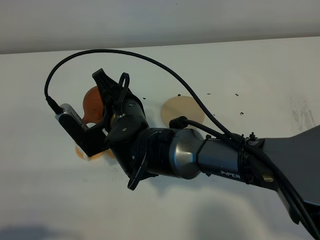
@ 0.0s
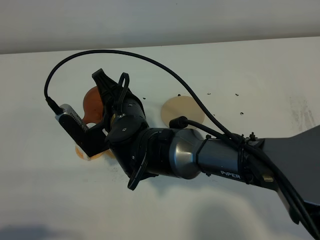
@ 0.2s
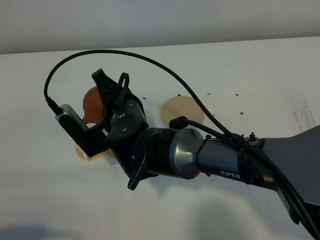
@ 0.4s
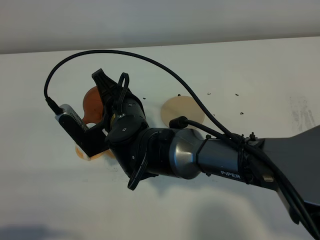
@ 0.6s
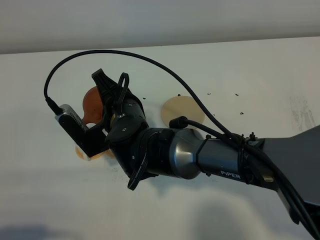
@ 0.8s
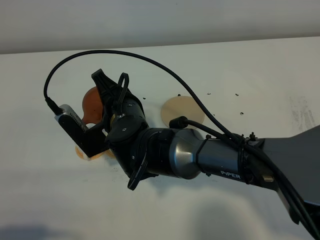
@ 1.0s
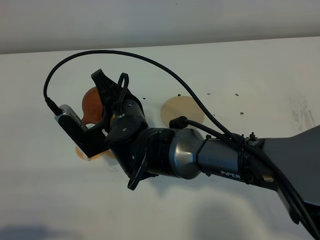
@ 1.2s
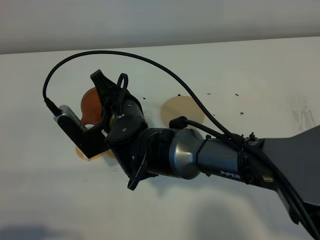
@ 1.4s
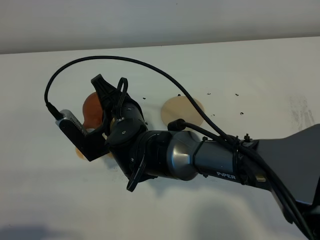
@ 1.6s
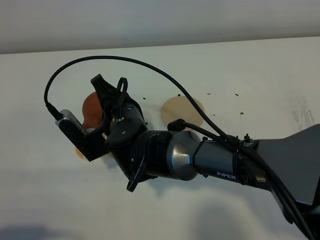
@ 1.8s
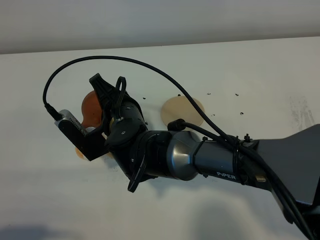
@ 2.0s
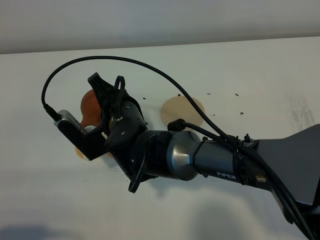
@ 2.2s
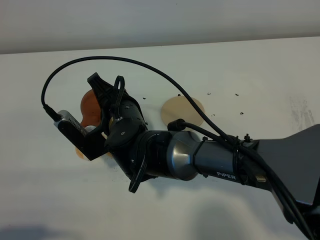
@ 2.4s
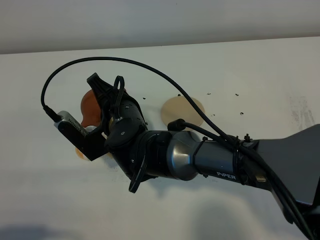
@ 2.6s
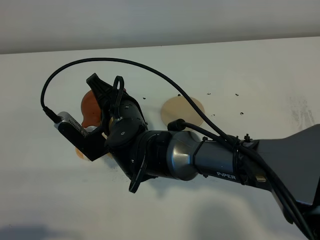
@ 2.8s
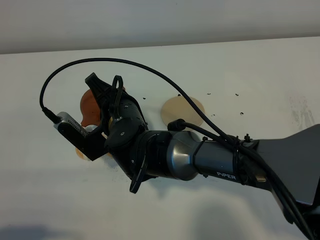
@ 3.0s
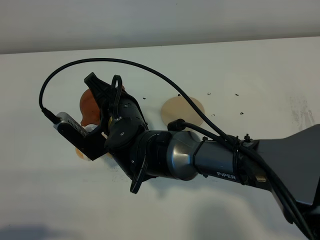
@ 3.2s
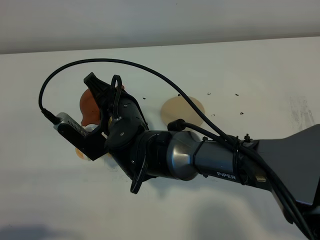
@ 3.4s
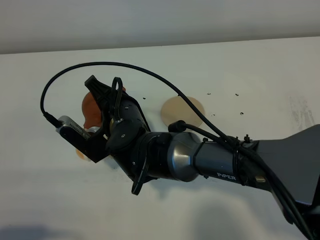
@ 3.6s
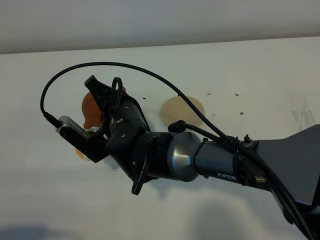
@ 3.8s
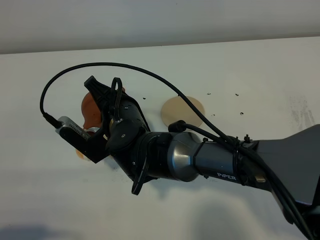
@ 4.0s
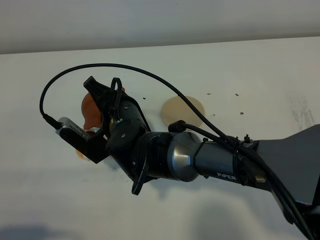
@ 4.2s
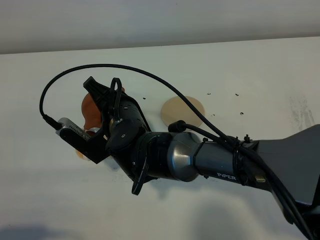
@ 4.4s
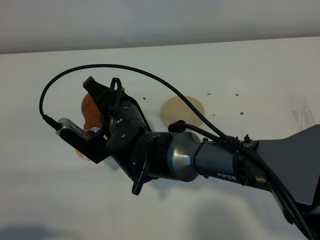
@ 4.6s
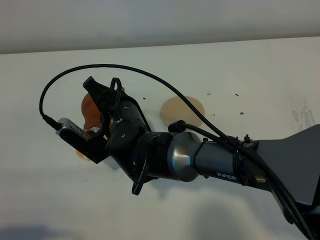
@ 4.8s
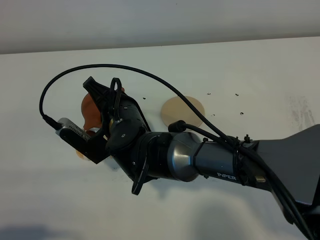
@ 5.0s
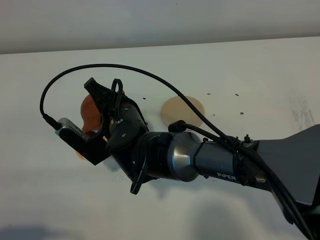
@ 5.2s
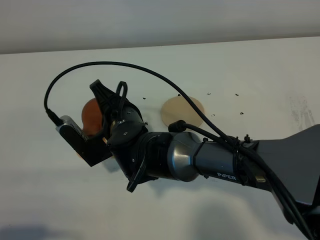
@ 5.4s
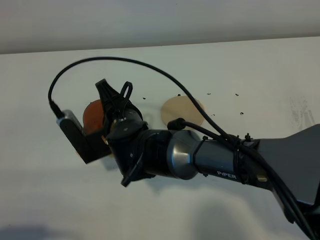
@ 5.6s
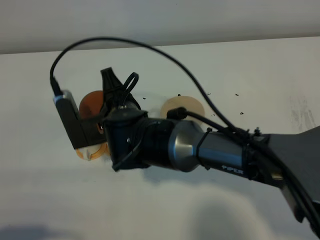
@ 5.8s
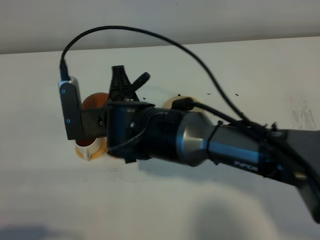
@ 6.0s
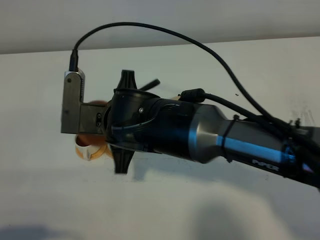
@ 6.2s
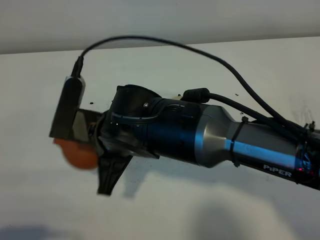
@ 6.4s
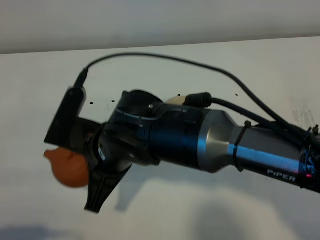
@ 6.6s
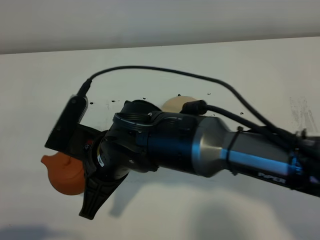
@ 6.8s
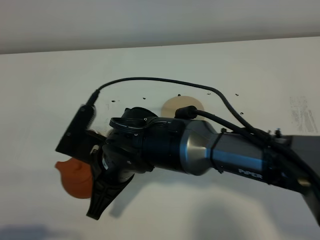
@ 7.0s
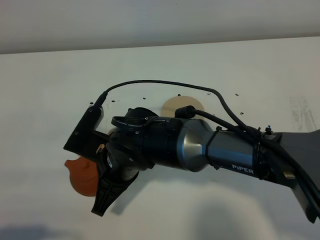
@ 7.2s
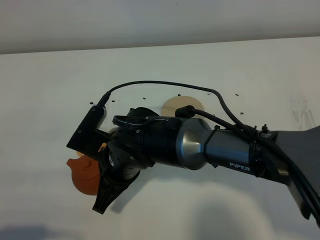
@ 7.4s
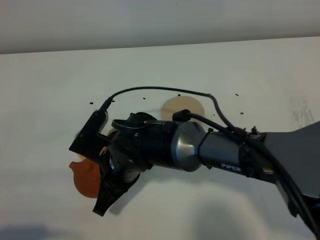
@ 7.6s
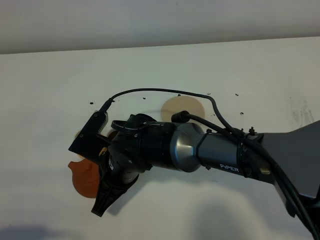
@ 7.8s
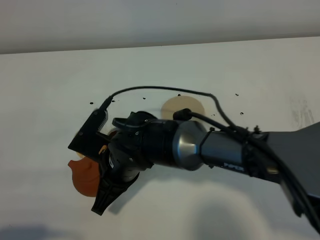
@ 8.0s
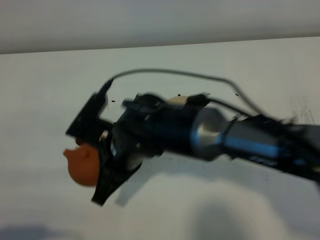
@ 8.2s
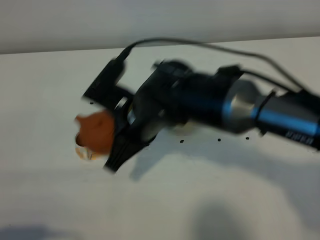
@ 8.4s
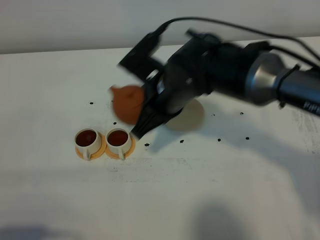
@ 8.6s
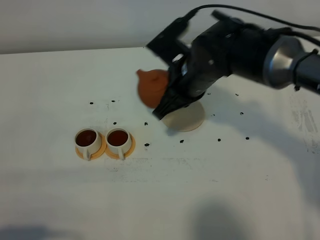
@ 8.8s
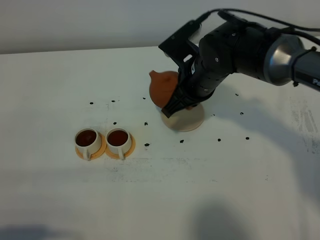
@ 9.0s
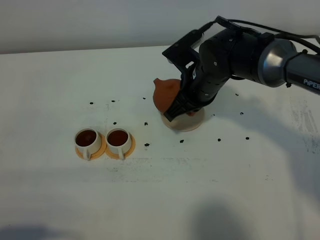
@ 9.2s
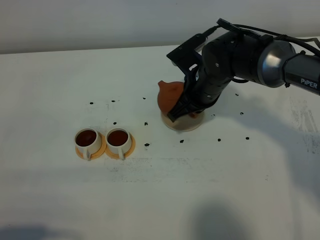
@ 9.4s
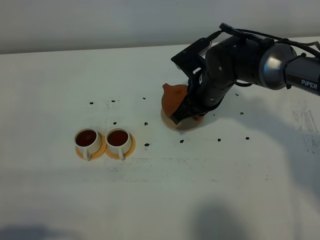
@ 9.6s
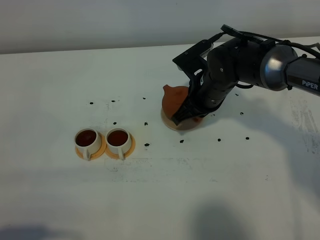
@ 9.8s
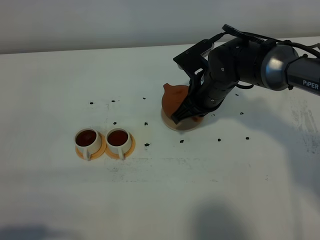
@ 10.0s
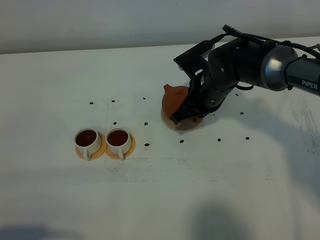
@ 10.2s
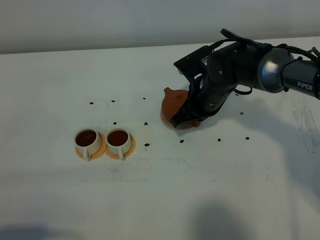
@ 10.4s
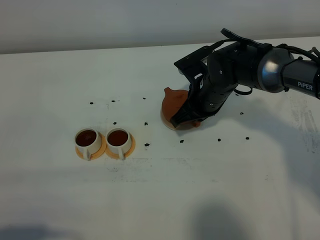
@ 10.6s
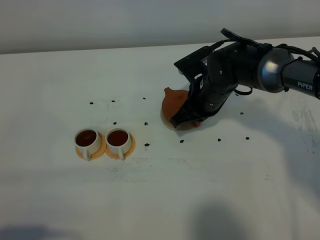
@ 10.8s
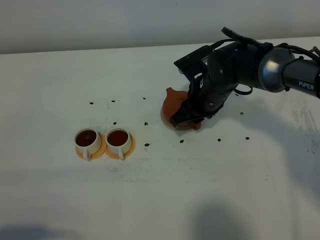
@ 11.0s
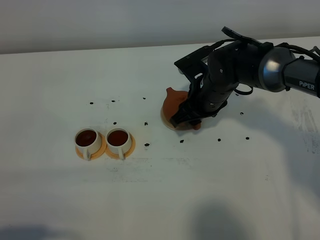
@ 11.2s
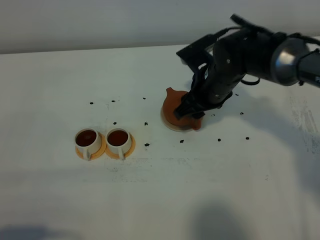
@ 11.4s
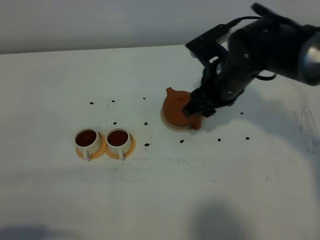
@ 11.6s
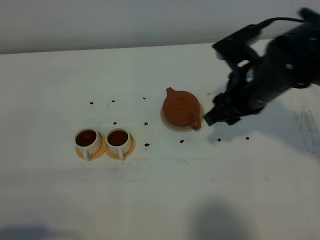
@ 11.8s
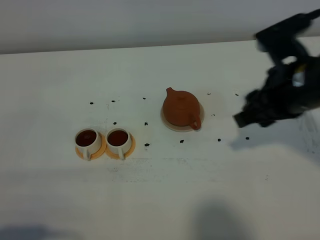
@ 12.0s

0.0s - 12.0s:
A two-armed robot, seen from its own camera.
Task of the whole recording: grasp the brown teapot and pour the tea into the two white teacups one by one, put the brown teapot back in its original place.
Step, 0.0s - 6.2s: Pour tea into the teacup with the right gripper.
0.0s - 1.6s: The two grippers keep their place.
1.6s - 3.0s: The grippers move only a little.
3.0s - 4.4s: Both grippers stay put.
6.0s - 7.6s: The right gripper shifts some 5 cm downward.
7.6s - 9.0s: The right gripper travels to the right, forward and upward by approximately 20 cm.
9.0s - 10.4s: The right gripper moves downward, approximately 5 cm.
10.4s - 12.0s: The right gripper travels upward, backward and to the right by some 20 cm, and opens its fingers.

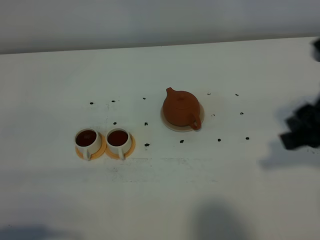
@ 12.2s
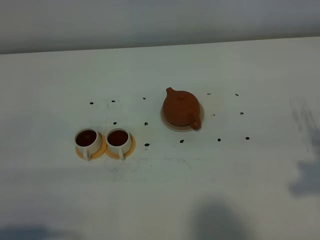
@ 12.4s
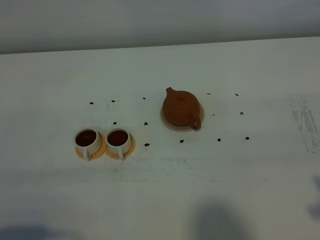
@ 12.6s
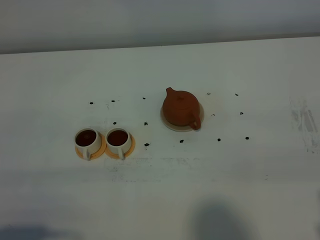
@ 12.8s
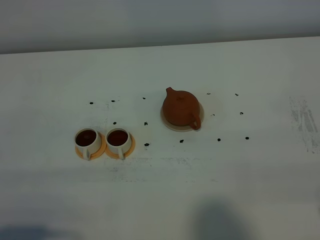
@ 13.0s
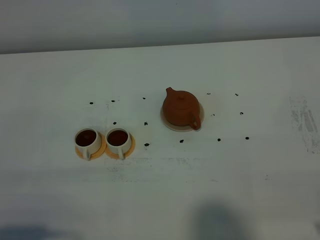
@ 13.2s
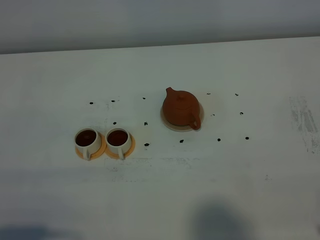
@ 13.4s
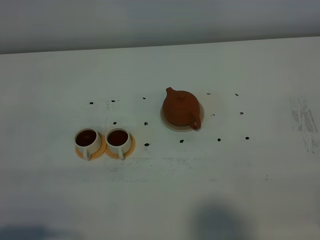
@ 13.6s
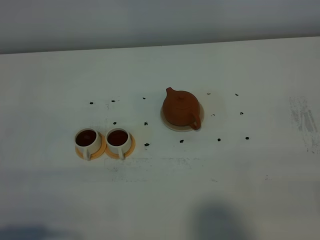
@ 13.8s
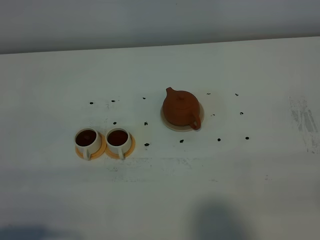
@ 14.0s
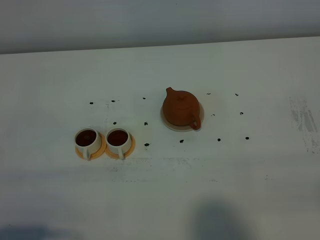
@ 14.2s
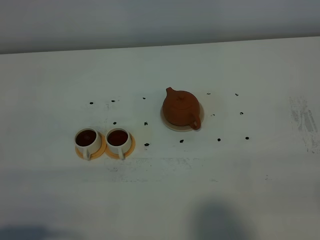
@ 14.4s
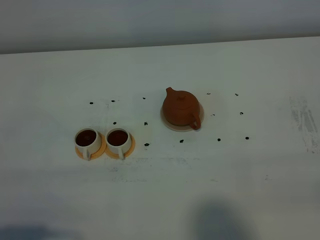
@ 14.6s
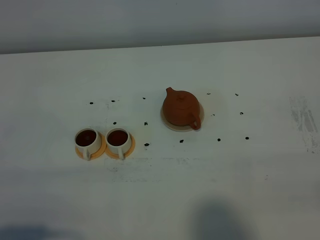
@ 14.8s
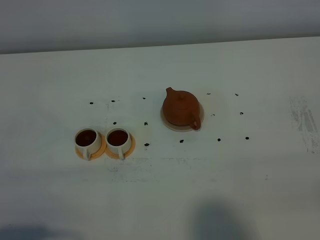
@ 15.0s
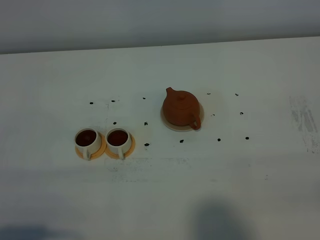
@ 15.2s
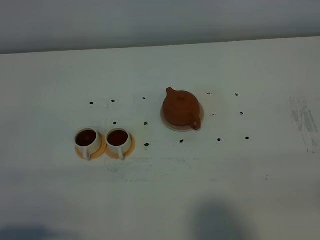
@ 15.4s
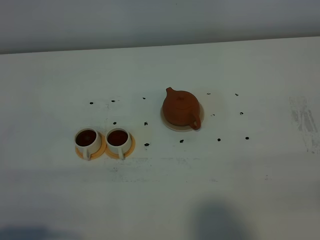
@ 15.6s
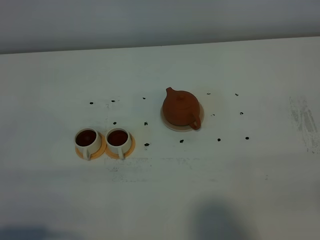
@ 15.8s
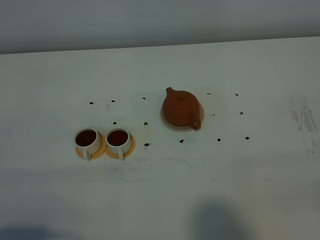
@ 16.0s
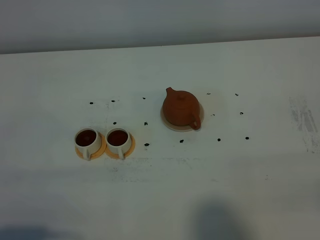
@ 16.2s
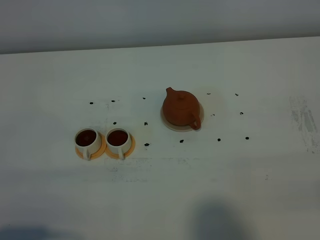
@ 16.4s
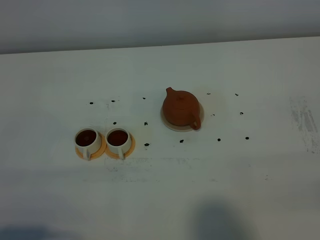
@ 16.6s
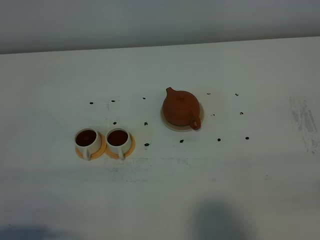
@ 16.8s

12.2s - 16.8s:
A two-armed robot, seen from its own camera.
Task of the whole recording: grasp the brown teapot and pour the tea into the two white teacups one by one, put the brown teapot back in its original place.
12.2s - 13.8s: The right gripper is displaced backward by approximately 20 cm.
15.2s - 16.8s: The two grippers keep their place.

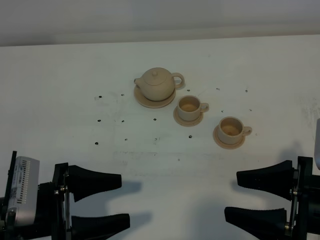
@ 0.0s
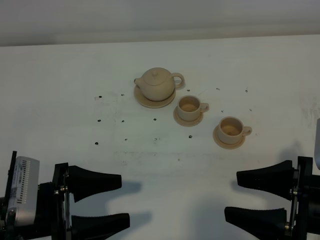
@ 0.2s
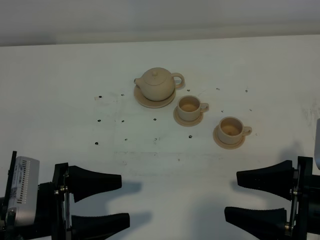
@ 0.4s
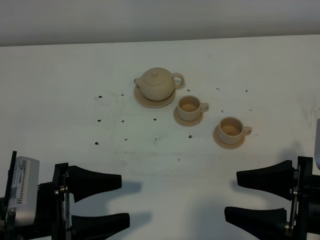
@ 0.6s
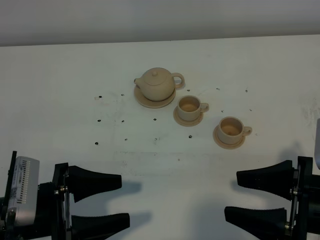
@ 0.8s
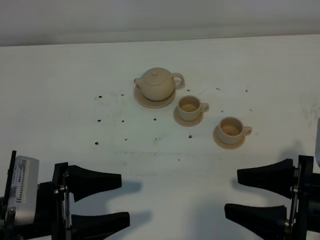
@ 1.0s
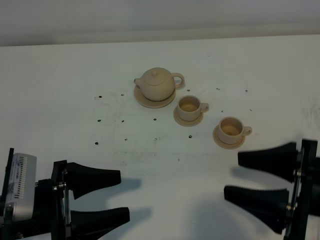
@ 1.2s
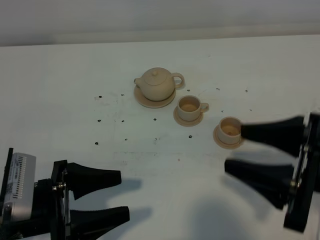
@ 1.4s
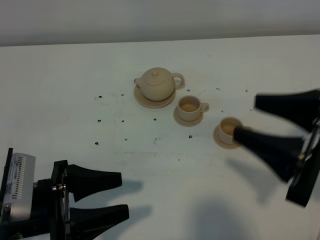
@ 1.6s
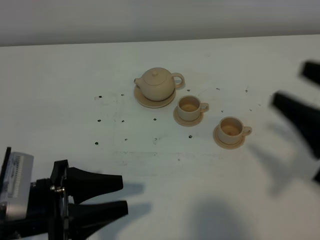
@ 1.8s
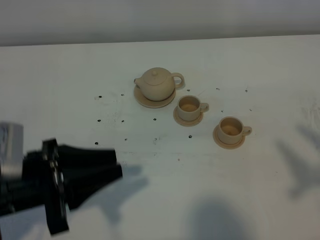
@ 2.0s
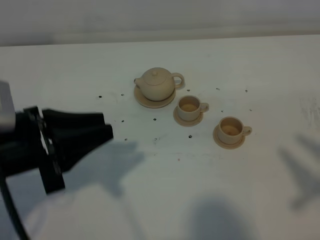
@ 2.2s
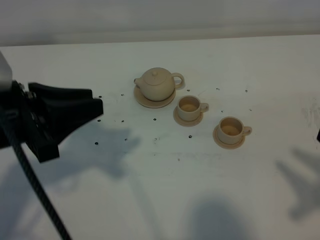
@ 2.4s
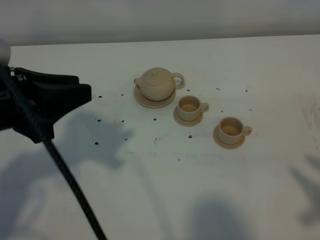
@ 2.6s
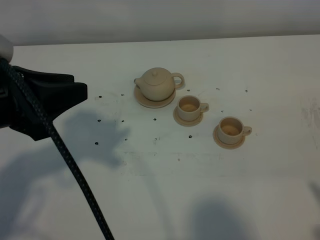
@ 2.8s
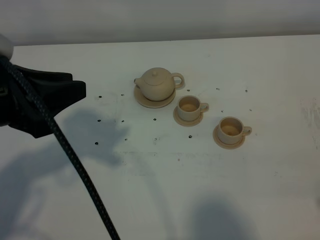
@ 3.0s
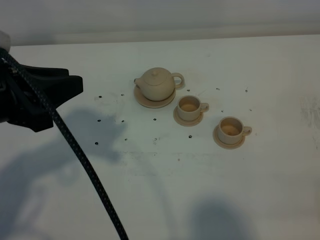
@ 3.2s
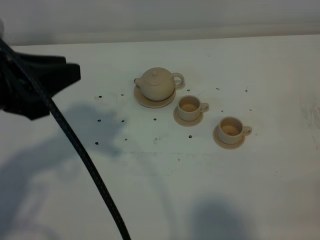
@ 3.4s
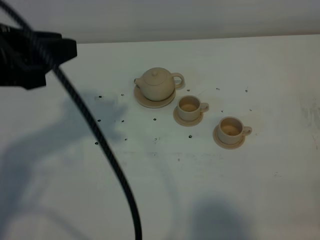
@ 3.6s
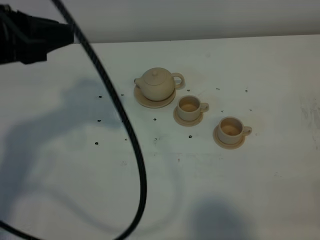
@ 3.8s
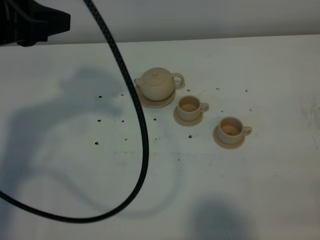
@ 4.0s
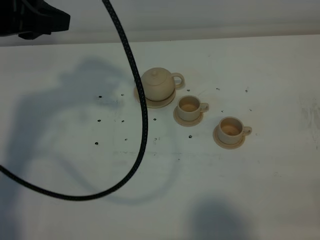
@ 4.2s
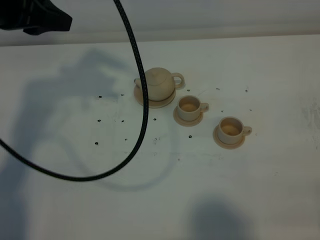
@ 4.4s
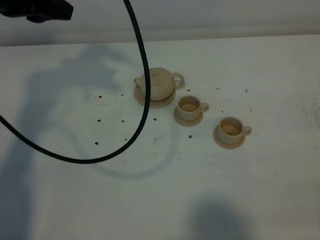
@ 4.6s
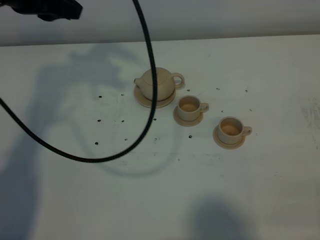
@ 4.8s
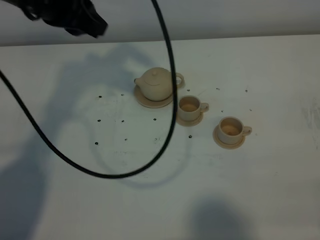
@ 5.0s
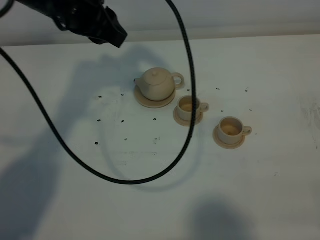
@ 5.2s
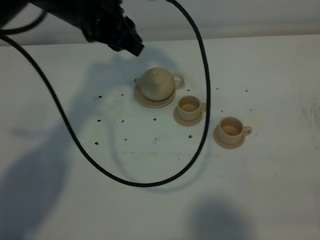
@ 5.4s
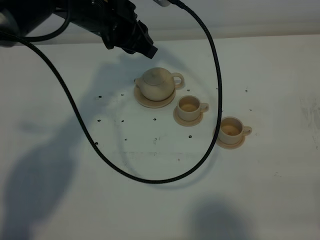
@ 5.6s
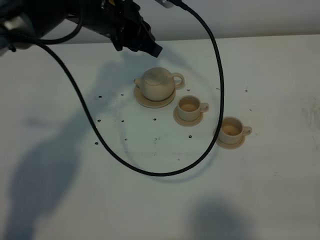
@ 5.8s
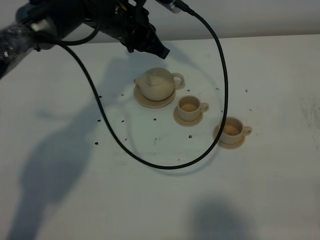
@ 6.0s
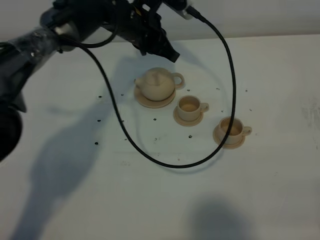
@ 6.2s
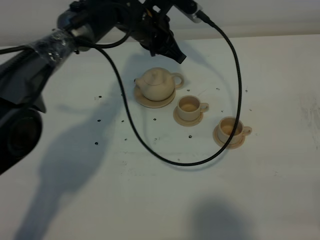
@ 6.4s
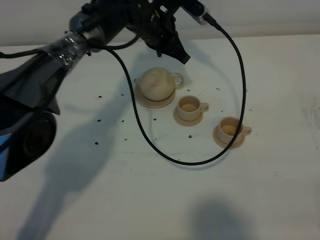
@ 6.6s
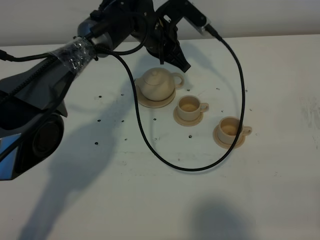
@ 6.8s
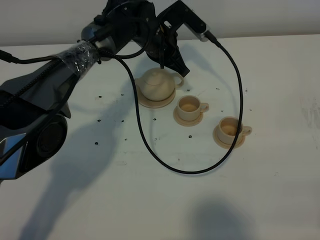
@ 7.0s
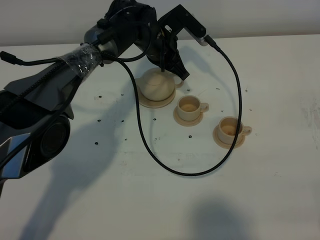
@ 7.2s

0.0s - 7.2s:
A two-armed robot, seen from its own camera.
Task of the whole recording: grasp the brown teapot and pour the tea into the two brown teacups one by one, put the brown teapot back in its original place.
0.0s - 1.4s: The right gripper is displaced upward by approximately 5 cm.
1.4s - 2.8s: The left gripper shifts about 15 cm upward and forward, and closes up, while the right gripper moves backward and to the right, roughly 15 cm, and closes its fingers.
2.8s - 4.4s: The left gripper goes roughly 15 cm forward and upward. The right gripper moves downward, about 5 cm.
4.4s - 5.8s: The left gripper shifts approximately 20 cm to the right, downward and forward.
5.8s - 7.2s: The left gripper heads downward, to the right and forward, covering about 15 cm.
